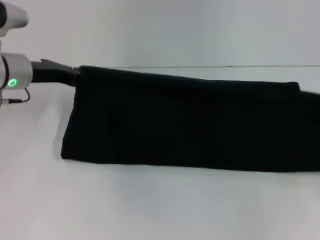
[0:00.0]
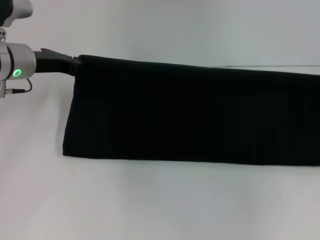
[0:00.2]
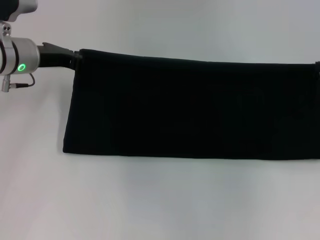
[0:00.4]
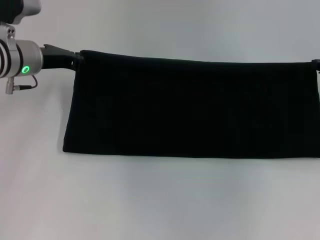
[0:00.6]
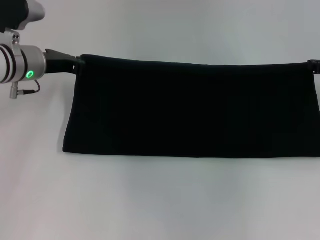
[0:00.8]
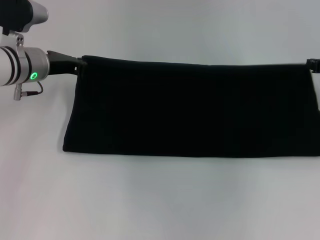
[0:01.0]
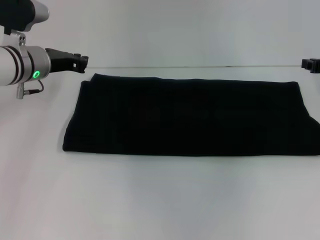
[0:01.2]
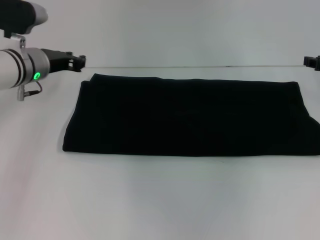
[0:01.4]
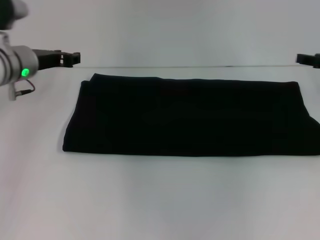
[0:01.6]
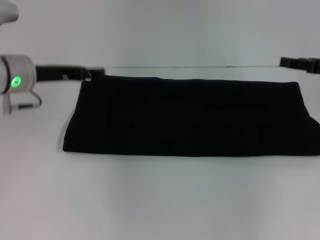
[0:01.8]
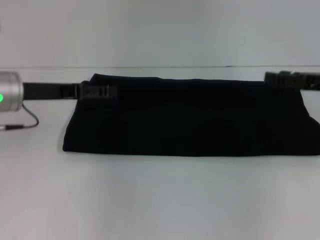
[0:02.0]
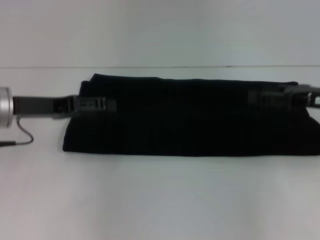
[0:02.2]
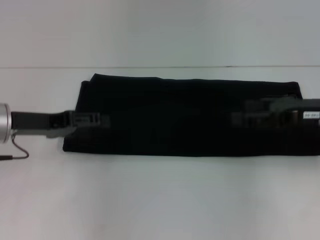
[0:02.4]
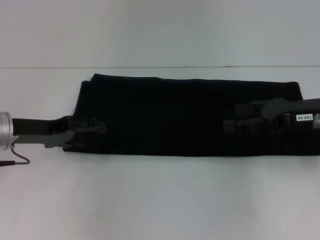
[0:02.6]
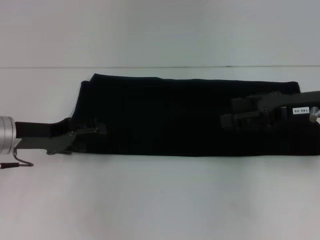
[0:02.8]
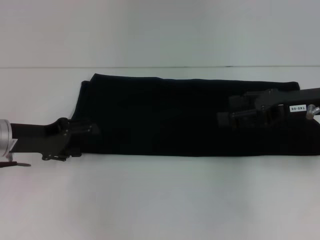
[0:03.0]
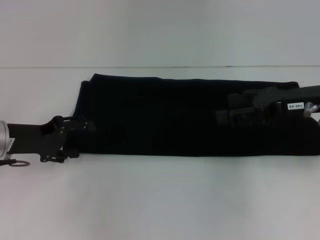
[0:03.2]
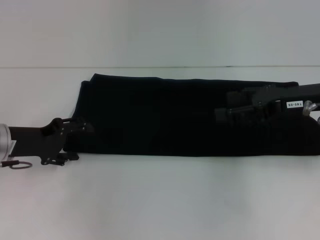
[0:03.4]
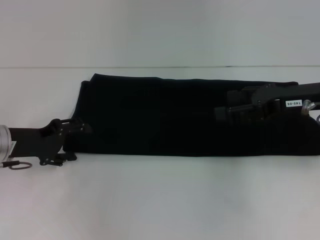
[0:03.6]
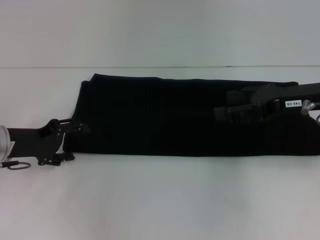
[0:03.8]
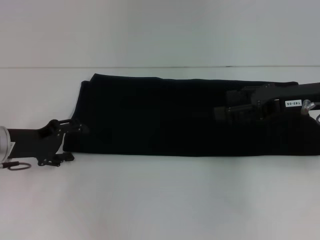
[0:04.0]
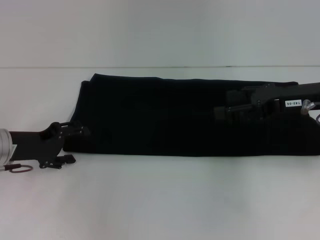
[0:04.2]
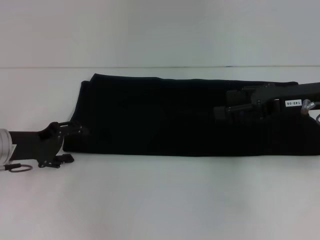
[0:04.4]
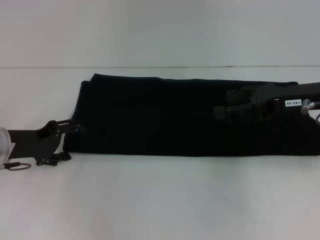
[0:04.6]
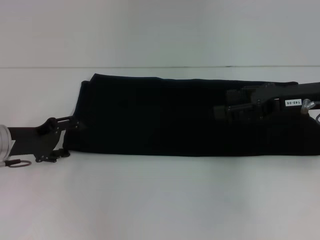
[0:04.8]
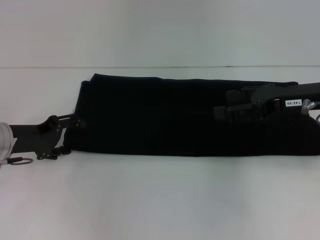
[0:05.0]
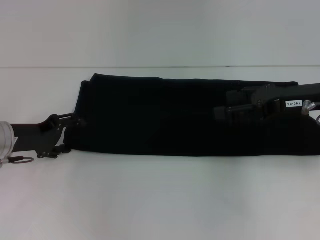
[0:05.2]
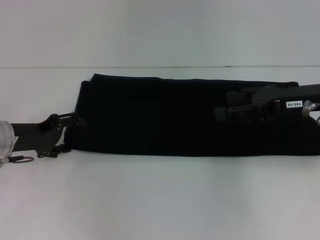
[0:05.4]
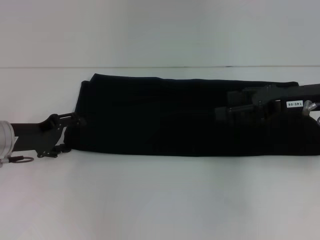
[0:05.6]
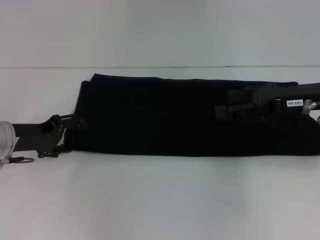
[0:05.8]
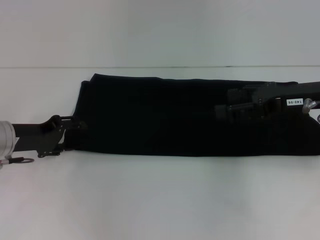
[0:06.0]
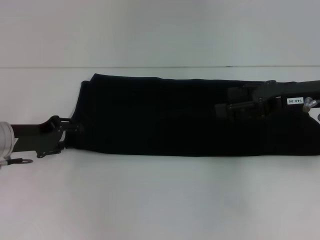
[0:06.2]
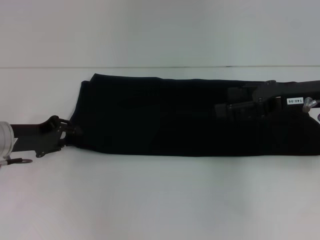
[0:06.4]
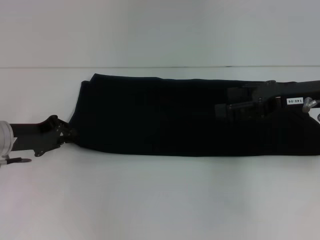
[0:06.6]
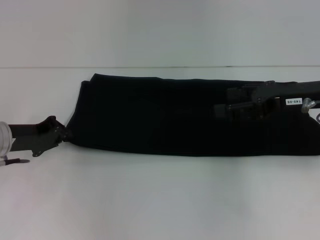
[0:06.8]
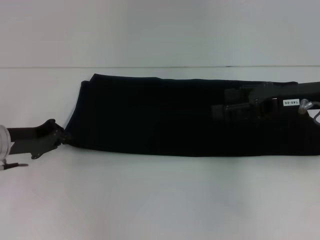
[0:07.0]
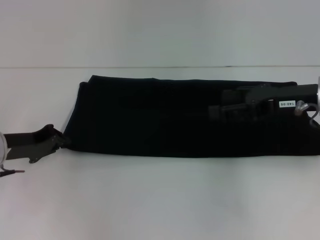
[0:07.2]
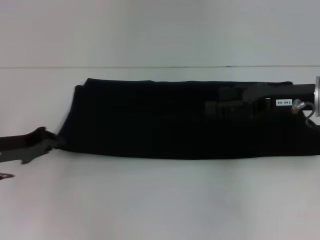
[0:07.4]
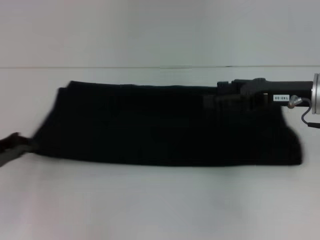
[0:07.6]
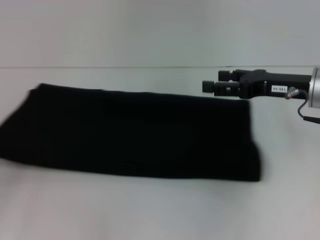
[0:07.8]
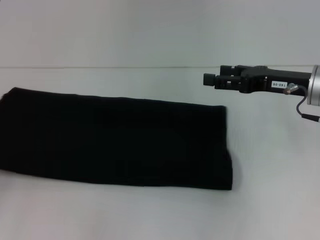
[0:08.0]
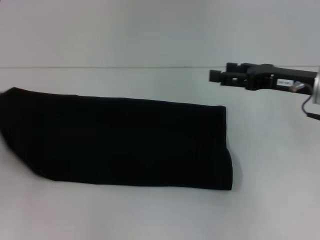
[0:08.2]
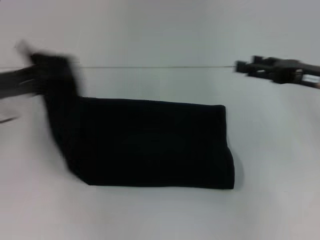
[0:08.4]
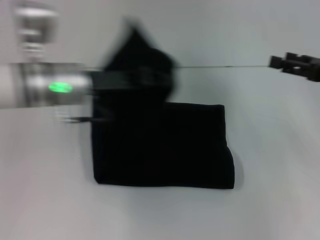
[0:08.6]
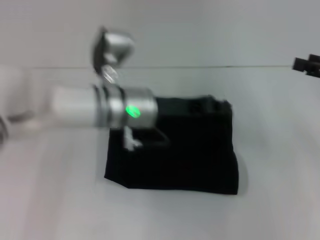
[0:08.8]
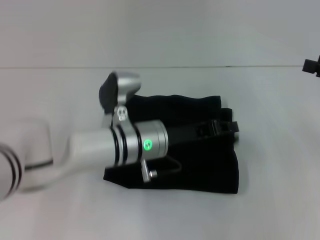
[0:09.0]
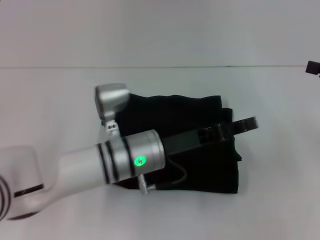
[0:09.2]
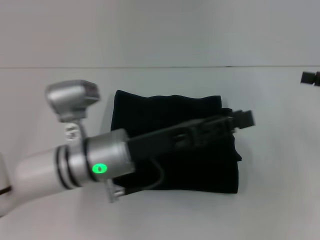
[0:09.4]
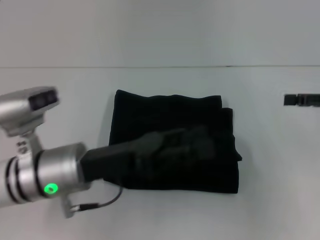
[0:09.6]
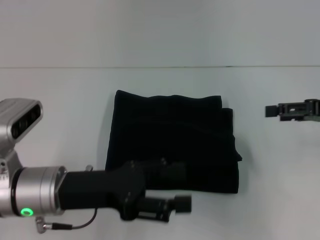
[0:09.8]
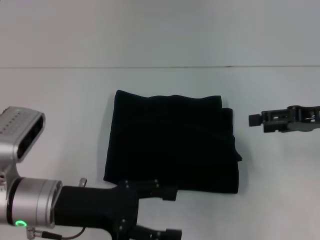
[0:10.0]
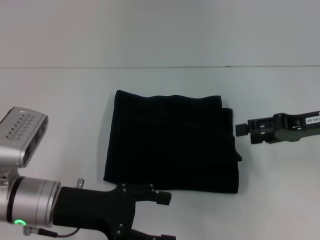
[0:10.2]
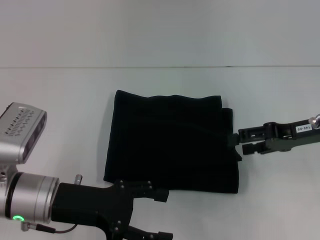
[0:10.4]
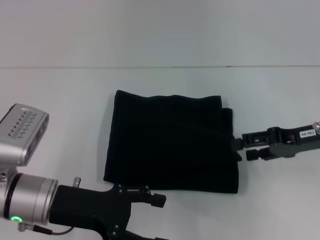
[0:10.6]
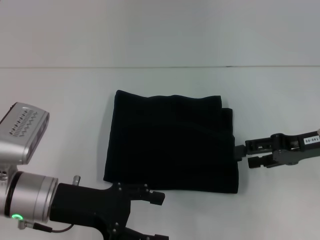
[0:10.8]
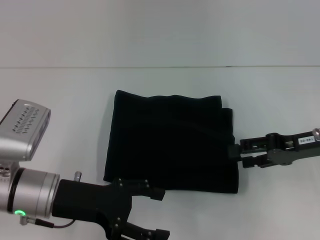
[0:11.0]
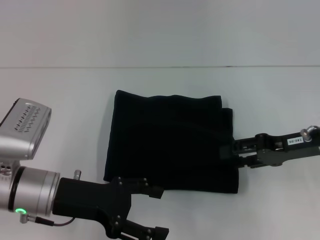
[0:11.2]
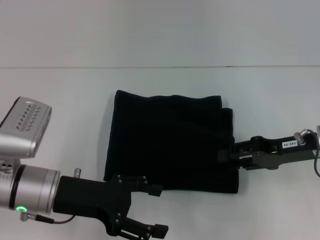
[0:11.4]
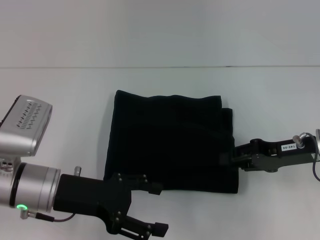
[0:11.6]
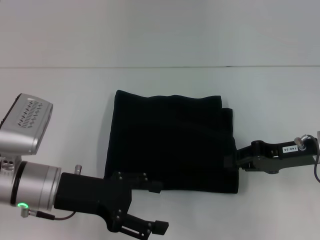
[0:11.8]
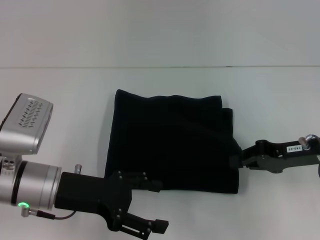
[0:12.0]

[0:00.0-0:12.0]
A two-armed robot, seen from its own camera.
Step, 0:00.0 to 0:01.2: Fold the clothes with your right hand.
Step, 0:00.0 to 0:09.6: Fold the clothes with your left hand.
0:00.0 to 0:01.6: The left gripper opens its fingers. Meanwhile the right gripper shifts some 5 cm forward, and opens its fingers.
0:01.6 to 0:03.0: The right gripper is displaced to the left and backward by about 10 cm, and opens, while the left gripper is displaced backward by approximately 10 cm, and opens its fingers.
0:03.0 to 0:06.0: There are only small adjustments of the grippers.
0:06.0 to 0:07.6: The left gripper is displaced to the left by about 5 cm, and closes its fingers.
0:07.6 to 0:09.0: The right gripper shifts roughly 15 cm to the right. The left gripper shifts roughly 30 cm to the right.
0:09.0 to 0:10.4: The right gripper goes approximately 10 cm to the left. Meanwhile the left gripper heads to the left and backward, covering approximately 15 cm, and opens up.
0:10.4 to 0:12.0: The right gripper closes.

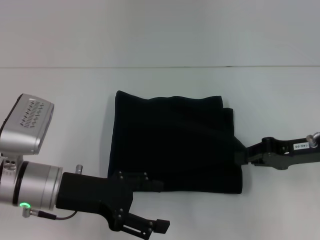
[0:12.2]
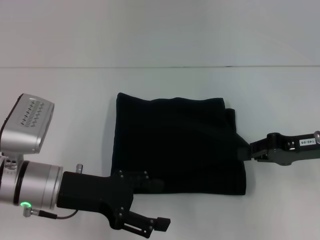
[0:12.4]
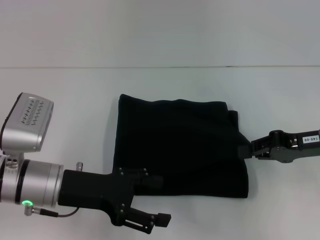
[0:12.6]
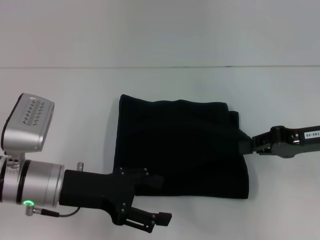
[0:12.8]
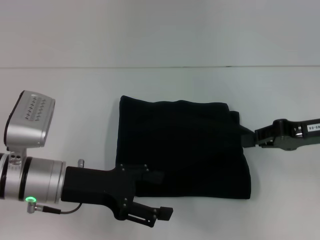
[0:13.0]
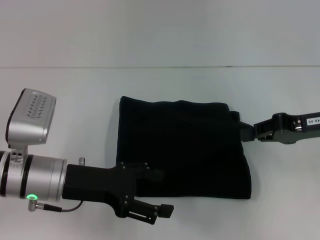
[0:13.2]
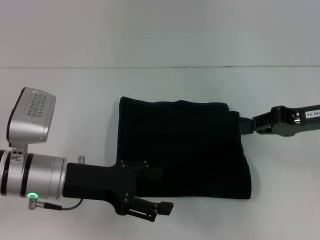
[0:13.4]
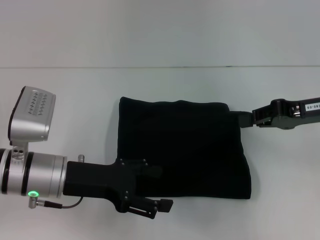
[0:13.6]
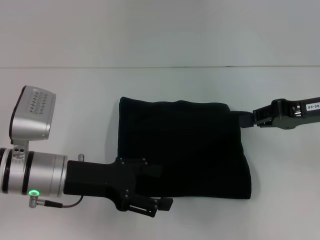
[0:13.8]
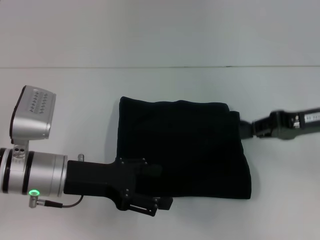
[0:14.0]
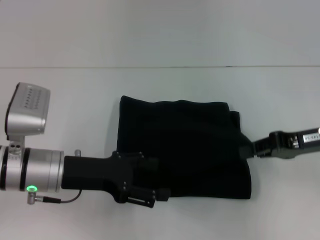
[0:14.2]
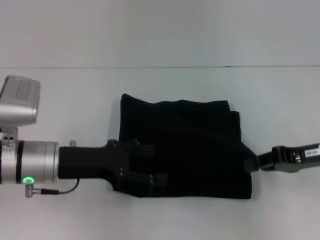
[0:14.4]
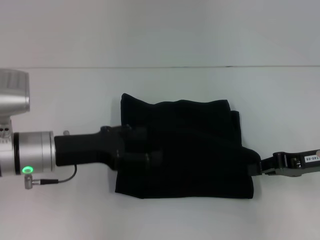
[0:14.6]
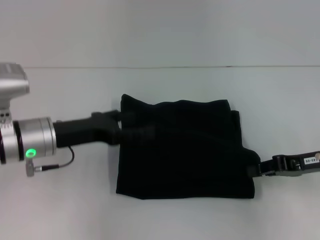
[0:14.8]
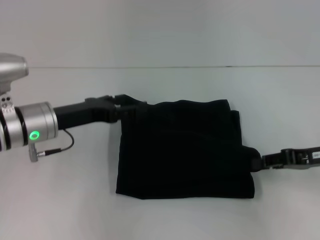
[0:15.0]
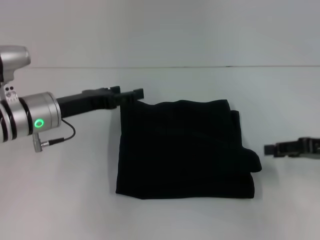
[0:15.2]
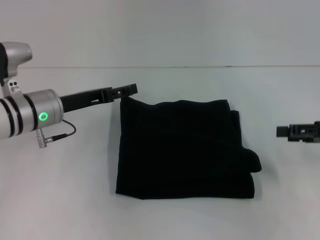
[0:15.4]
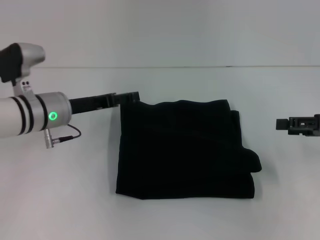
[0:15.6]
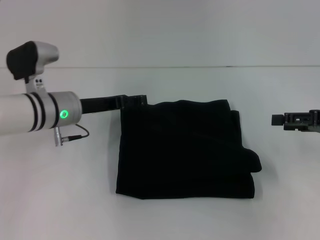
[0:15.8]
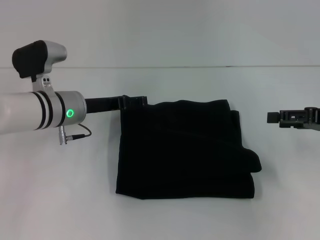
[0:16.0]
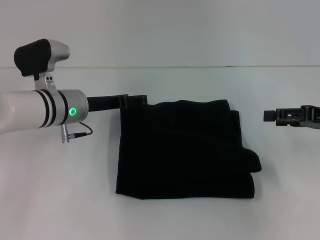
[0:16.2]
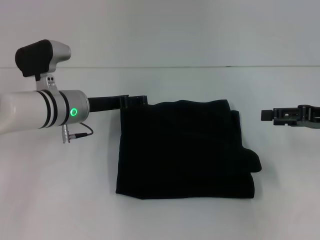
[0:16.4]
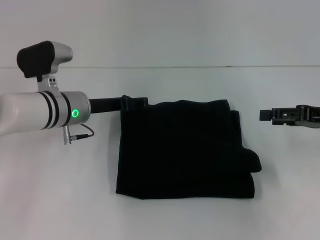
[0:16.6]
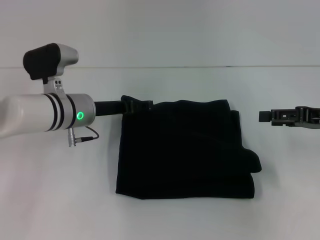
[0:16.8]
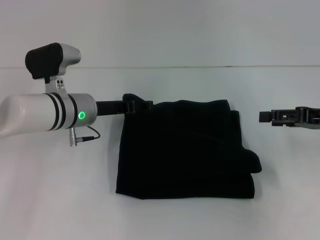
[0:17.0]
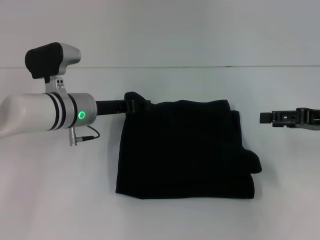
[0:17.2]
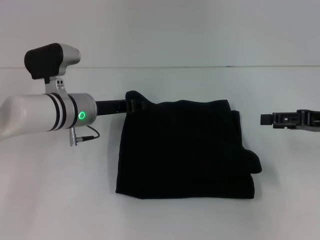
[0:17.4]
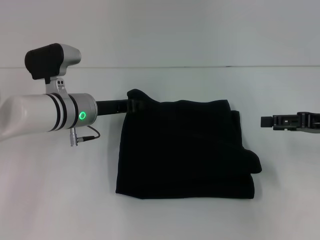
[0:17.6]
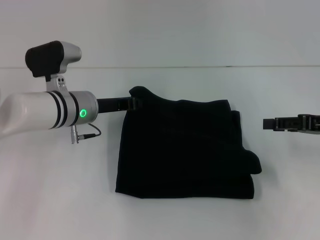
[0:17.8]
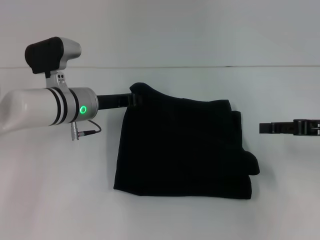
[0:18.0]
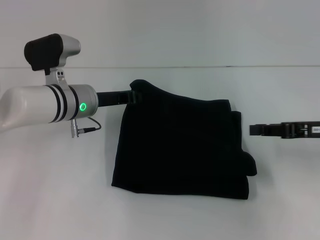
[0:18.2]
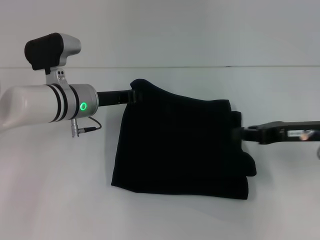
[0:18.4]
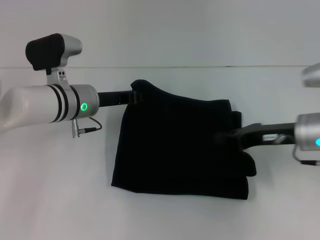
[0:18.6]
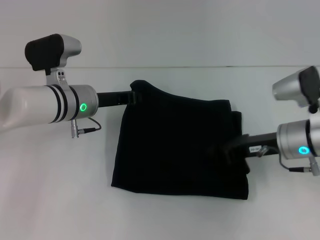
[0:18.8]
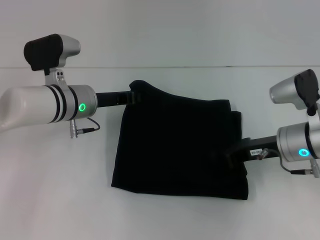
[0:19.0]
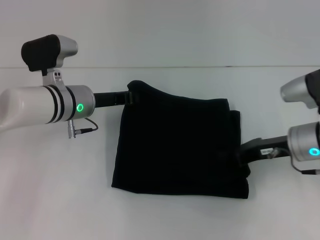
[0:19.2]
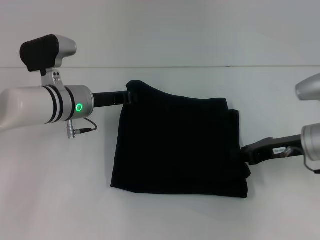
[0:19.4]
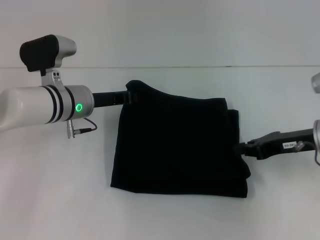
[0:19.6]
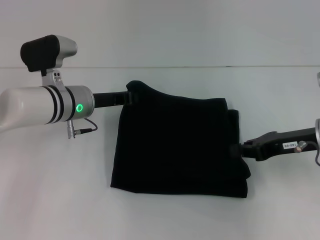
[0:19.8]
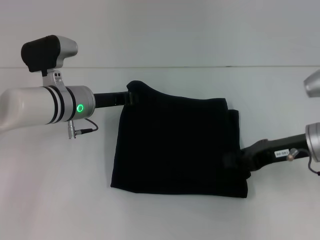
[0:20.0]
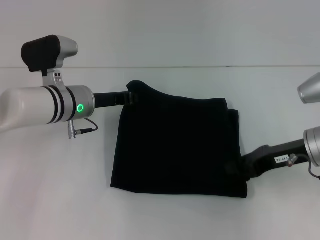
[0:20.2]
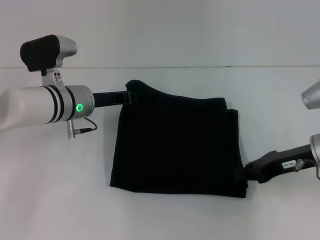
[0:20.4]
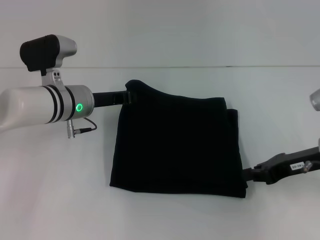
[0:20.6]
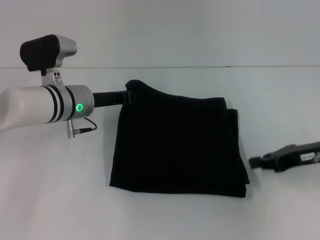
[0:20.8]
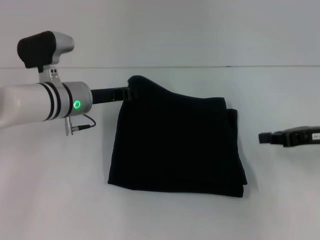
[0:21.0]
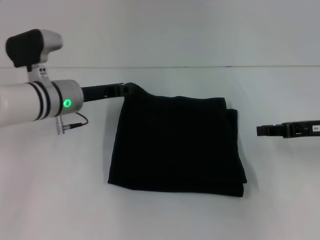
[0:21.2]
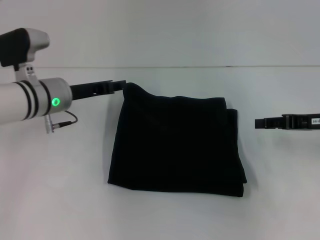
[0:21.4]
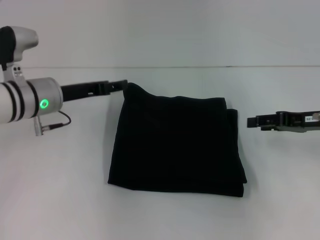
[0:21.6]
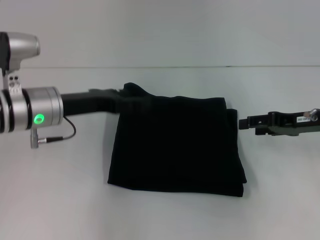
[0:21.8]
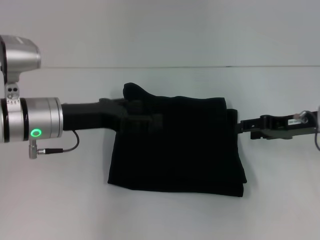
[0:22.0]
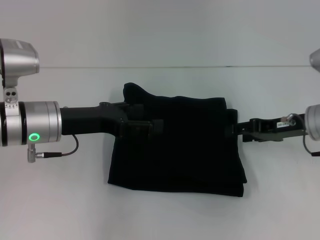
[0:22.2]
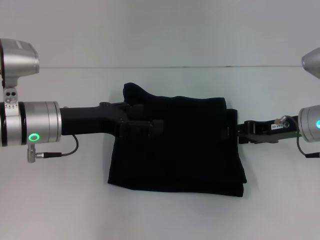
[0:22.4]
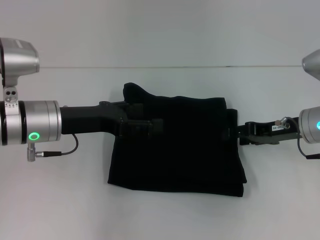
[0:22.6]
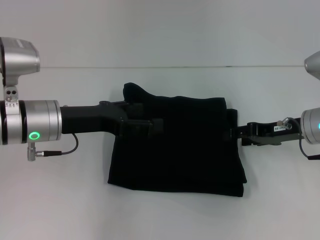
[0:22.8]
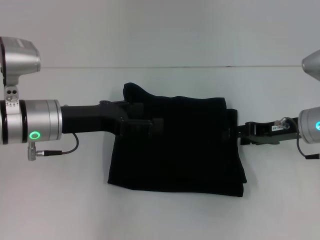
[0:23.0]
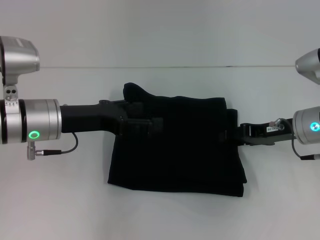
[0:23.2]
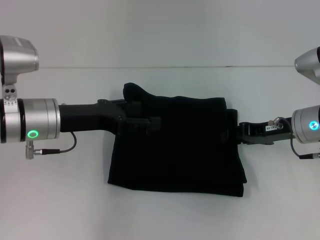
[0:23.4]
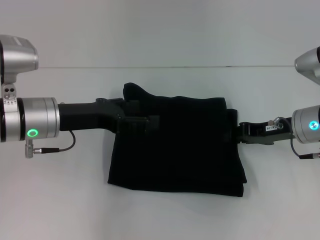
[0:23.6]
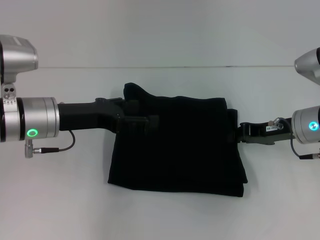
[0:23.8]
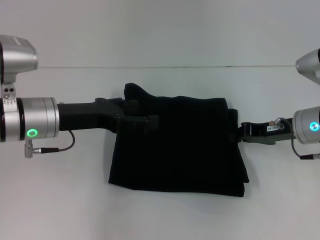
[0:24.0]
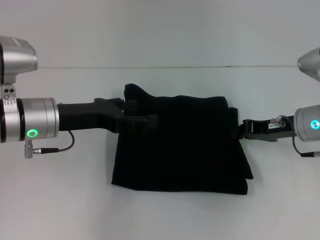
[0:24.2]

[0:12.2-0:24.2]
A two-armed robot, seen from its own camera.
0:12.2 to 0:13.8: The right gripper shifts roughly 5 cm upward.
0:13.8 to 0:15.2: The right gripper travels downward by some 5 cm, while the left gripper shifts approximately 5 cm forward.
0:15.2 to 0:16.6: The right gripper opens its fingers. Meanwhile the left gripper ends up some 5 cm from where it was.
0:16.6 to 0:18.2: The left gripper closes.
0:18.2 to 0:19.8: The right gripper closes its fingers.
0:19.8 to 0:21.2: The grippers move only a little.
0:21.2 to 0:22.6: The right gripper shifts some 5 cm to the left, and opens, while the left gripper travels backward by roughly 5 cm, and opens its fingers.
0:22.6 to 0:24.2: The right gripper closes its fingers.
